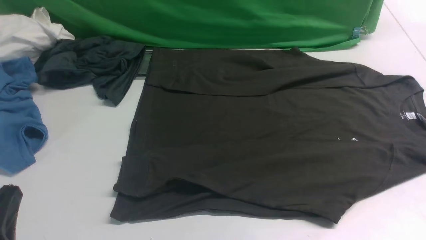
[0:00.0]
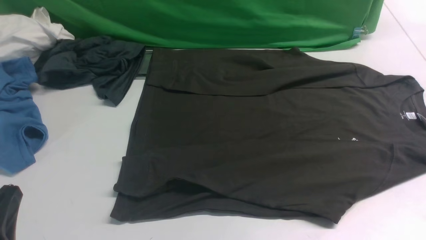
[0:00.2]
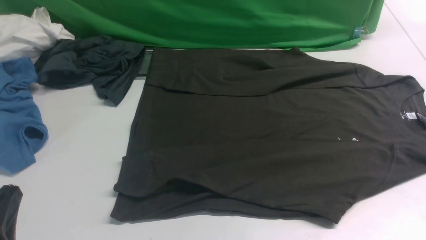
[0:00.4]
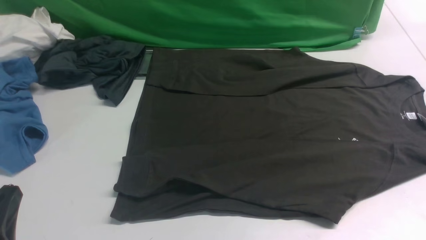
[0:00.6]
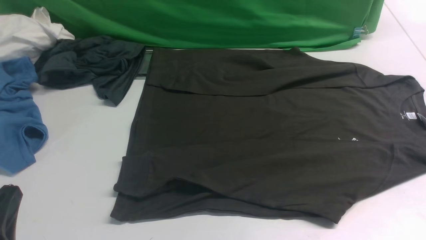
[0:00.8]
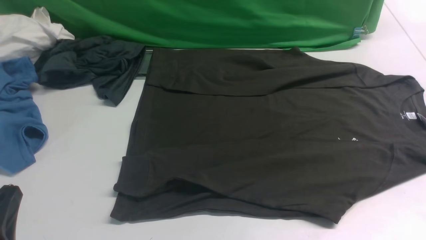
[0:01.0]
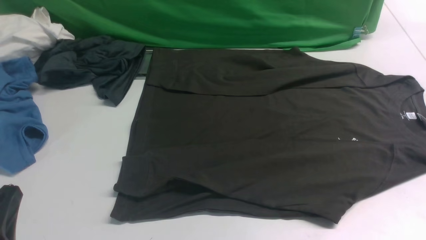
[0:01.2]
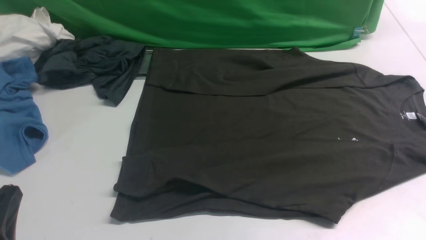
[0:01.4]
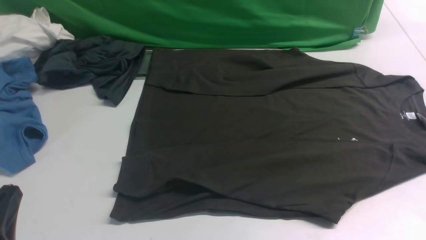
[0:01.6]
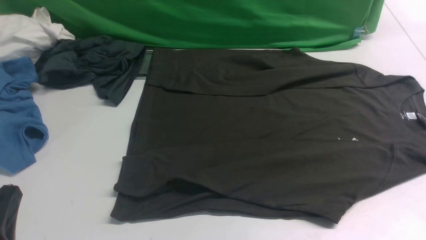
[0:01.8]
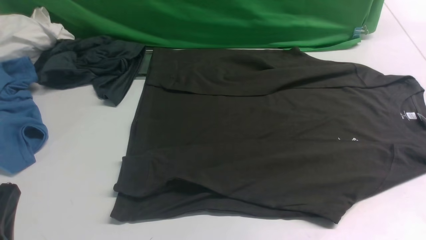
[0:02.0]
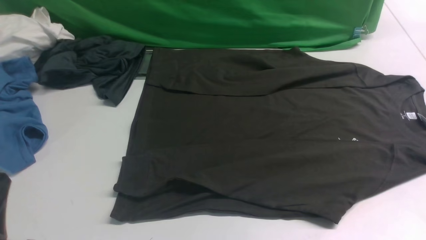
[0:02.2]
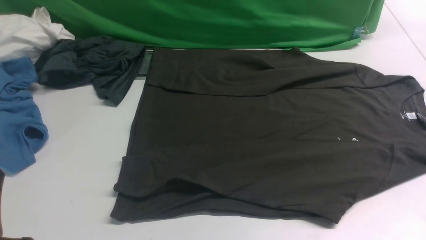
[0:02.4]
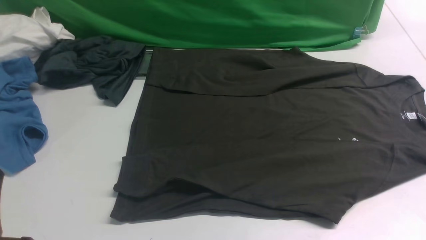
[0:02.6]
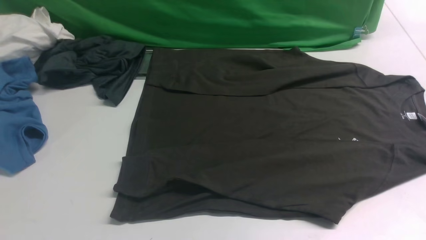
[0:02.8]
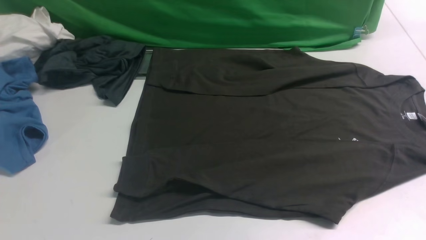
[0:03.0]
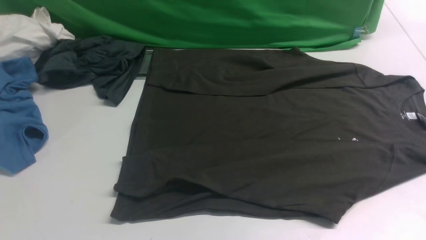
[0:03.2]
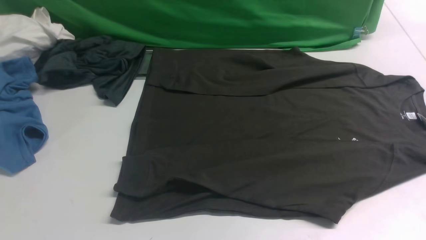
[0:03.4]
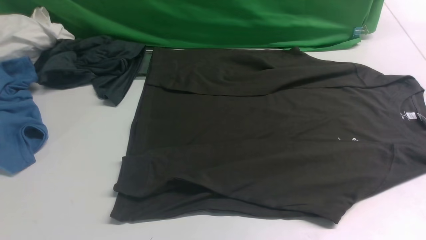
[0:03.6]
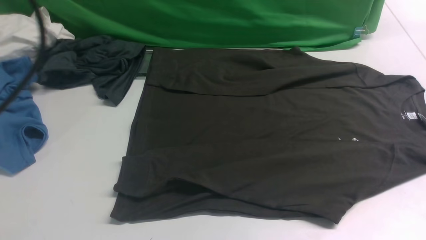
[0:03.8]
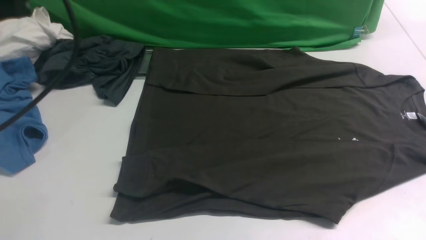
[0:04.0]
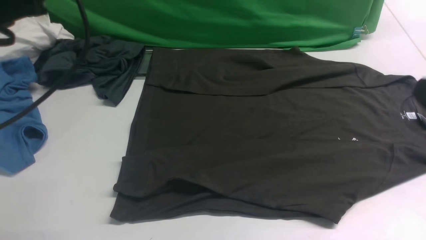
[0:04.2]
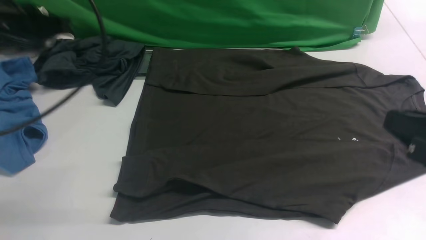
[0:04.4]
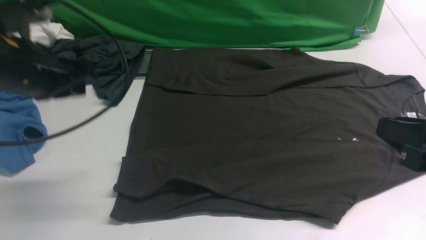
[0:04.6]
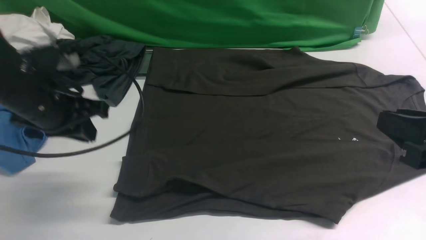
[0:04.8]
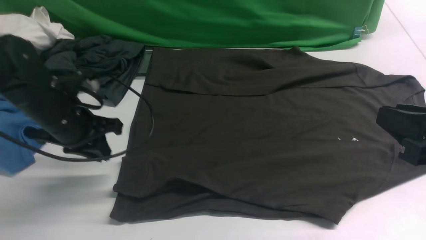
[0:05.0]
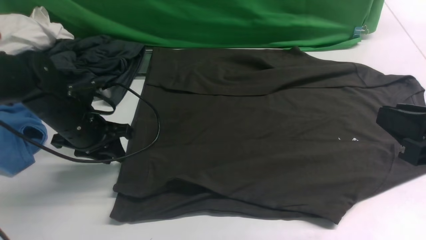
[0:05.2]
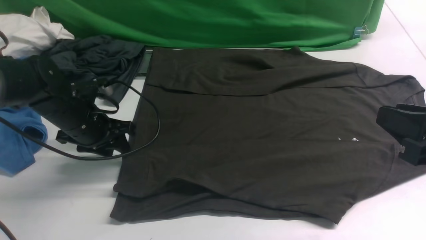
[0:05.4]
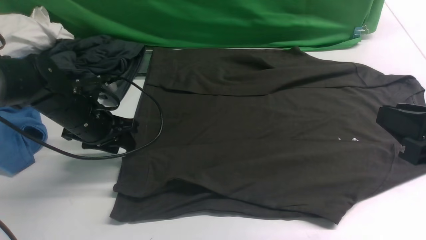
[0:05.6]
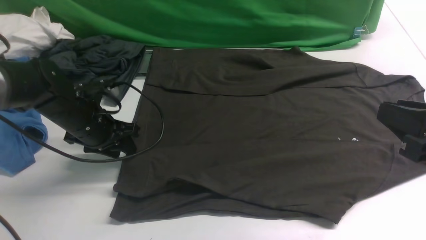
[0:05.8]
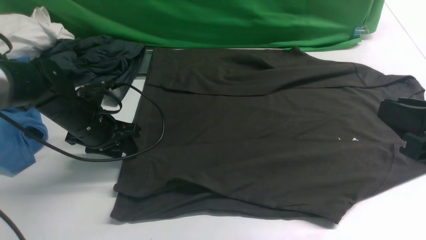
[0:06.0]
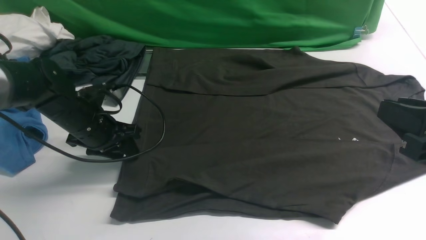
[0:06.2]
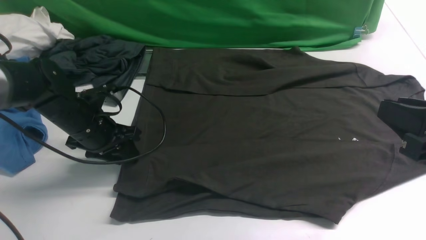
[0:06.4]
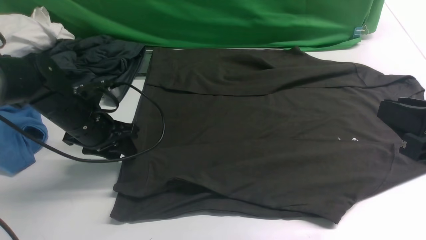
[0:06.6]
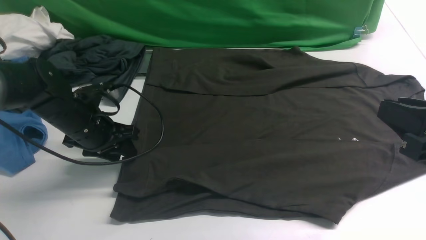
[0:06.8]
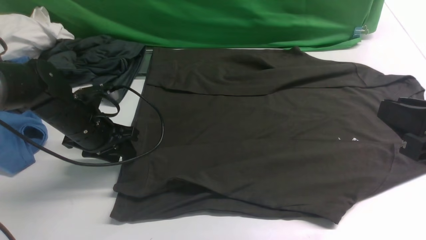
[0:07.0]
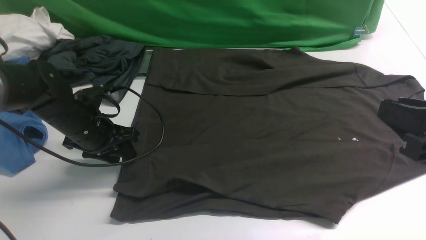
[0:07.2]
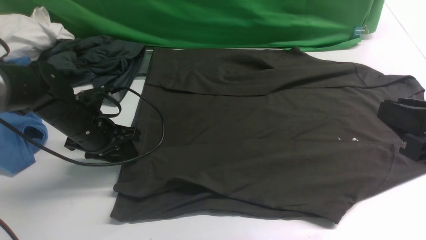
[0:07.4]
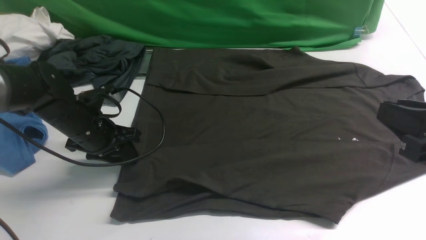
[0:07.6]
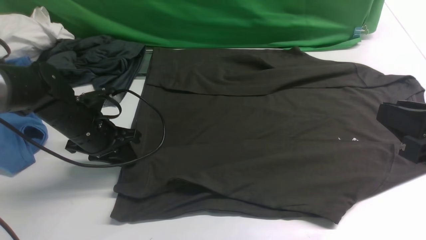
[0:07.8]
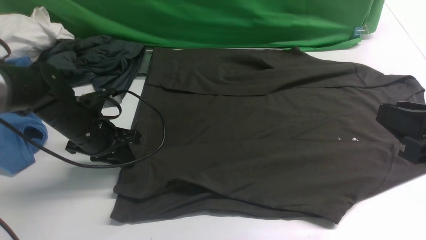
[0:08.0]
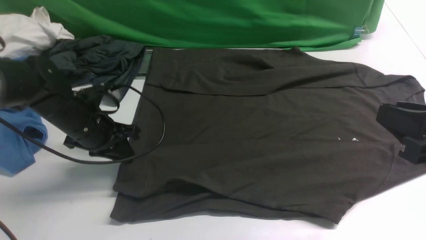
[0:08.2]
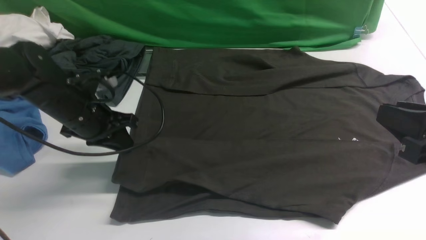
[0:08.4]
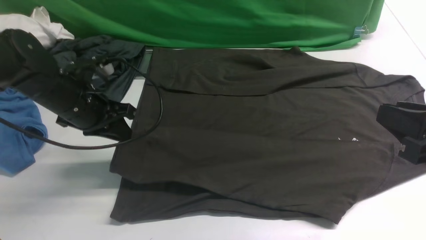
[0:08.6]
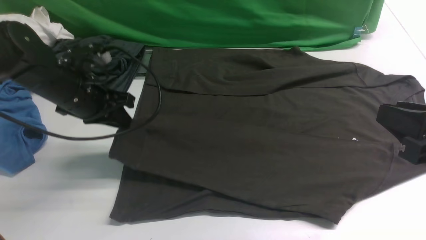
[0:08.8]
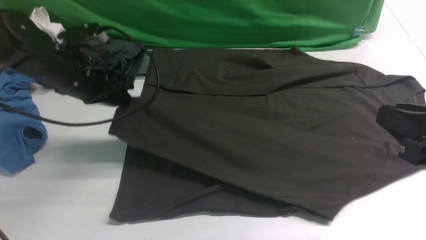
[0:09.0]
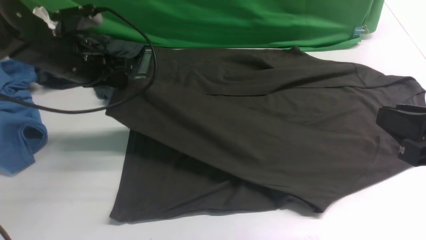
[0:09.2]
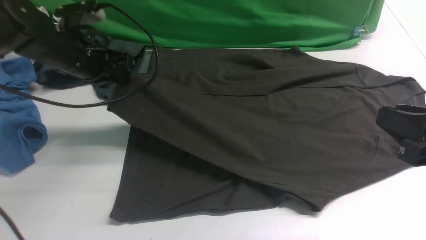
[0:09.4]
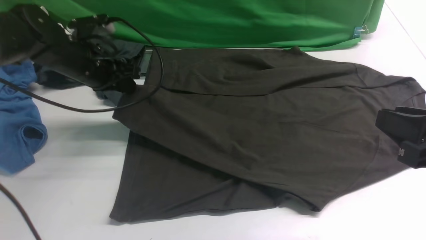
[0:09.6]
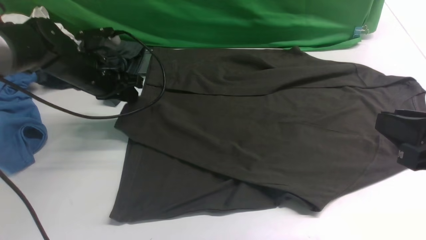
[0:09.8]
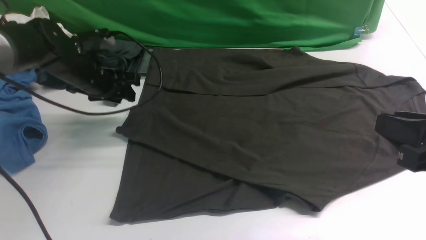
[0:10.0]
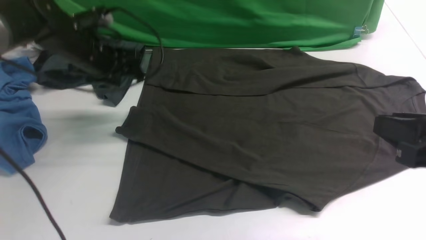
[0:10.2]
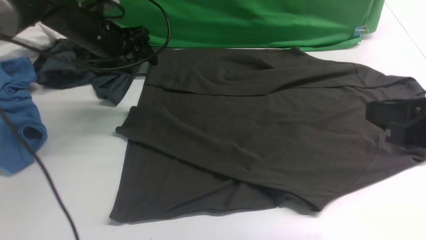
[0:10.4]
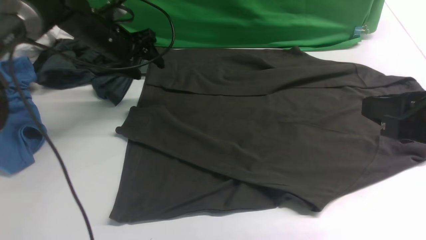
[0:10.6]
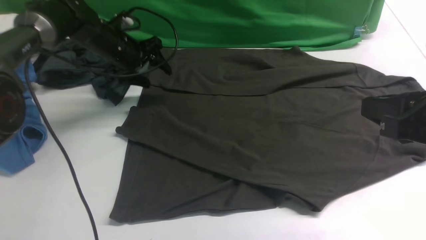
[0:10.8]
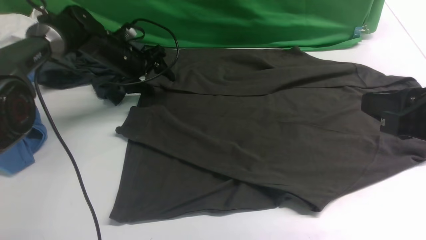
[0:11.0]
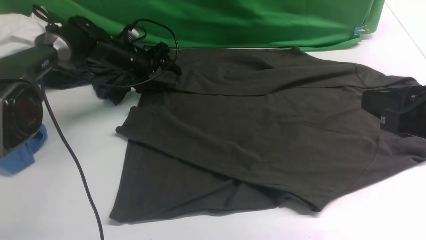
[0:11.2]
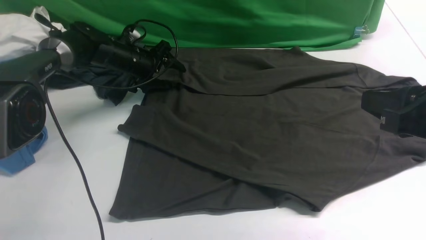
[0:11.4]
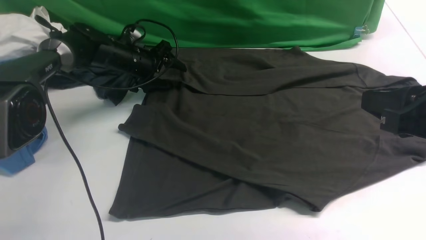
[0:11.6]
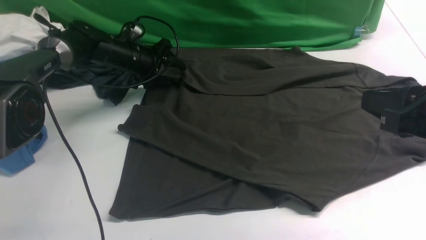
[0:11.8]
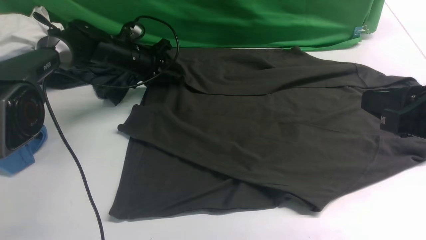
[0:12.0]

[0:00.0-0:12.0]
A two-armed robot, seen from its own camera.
Step, 0:00.0 to 0:08.2: use the left arm to clamp the cuff closest to it.
Step, 0:08.6 to 0:10.0: use the left arm to drag and place the cuff at the centered position on the left edge of the fabric.
0:00.0 to 0:01.6: Neither gripper changes place.
0:01.6 to 0:03.0: The left gripper is displaced upward by roughly 10 cm.
0:03.0 to 0:04.4: The right gripper is displaced forward and to the left by about 15 cm, and goes upward and returns, roughly 10 cm each way. Meanwhile the left gripper travels forward by approximately 25 cm.
0:04.4 to 0:06.0: The left gripper shifts about 20 cm downward, and opens.
0:06.0 to 0:07.6: Both grippers stay put.
0:07.6 to 0:09.0: The left gripper shifts roughly 10 cm upward.
0:09.0 to 0:10.4: The left gripper is displaced forward by approximately 10 cm, and opens up.
0:10.4 to 0:12.0: The left gripper moves downward and forward, some 10 cm, and closes up.

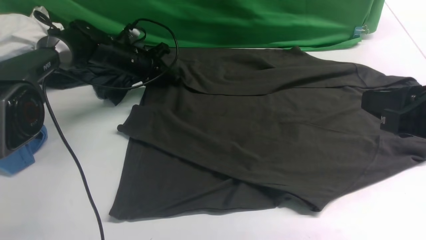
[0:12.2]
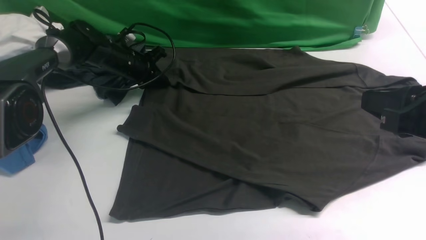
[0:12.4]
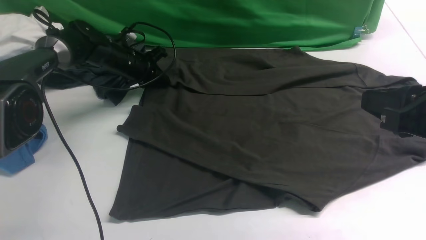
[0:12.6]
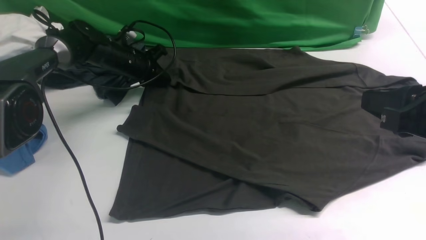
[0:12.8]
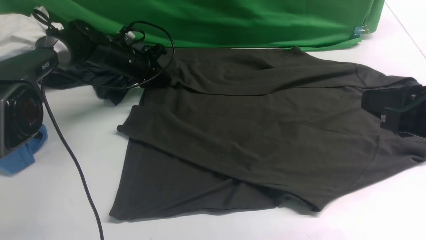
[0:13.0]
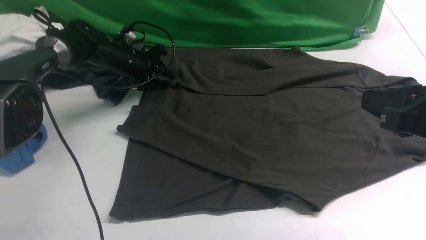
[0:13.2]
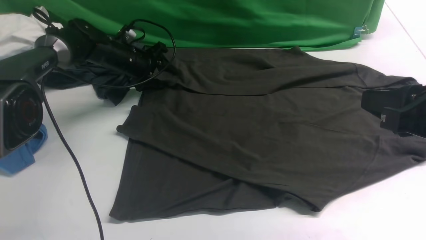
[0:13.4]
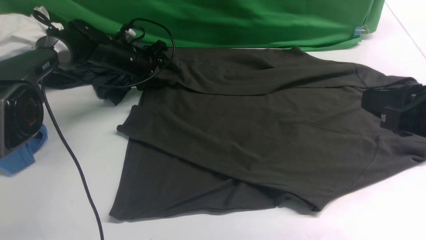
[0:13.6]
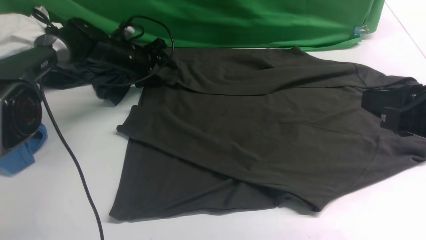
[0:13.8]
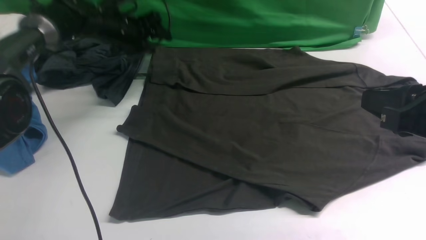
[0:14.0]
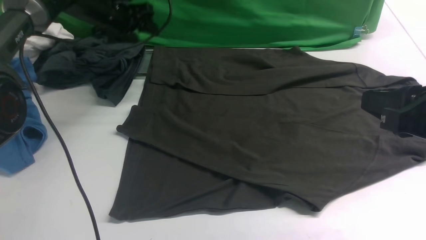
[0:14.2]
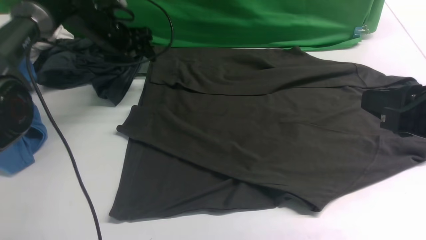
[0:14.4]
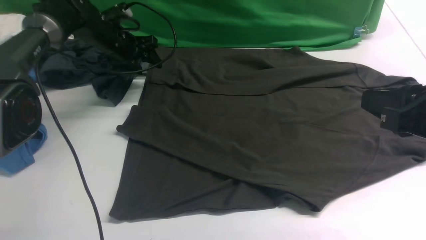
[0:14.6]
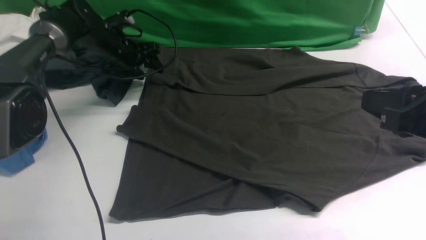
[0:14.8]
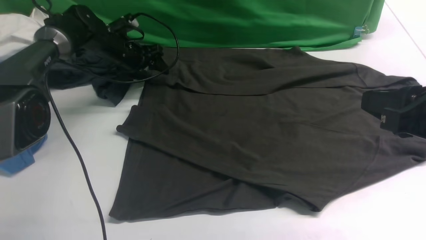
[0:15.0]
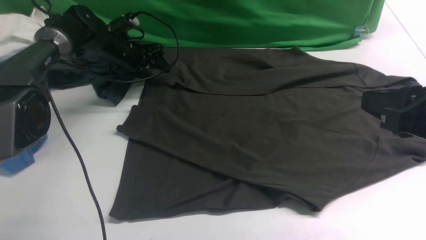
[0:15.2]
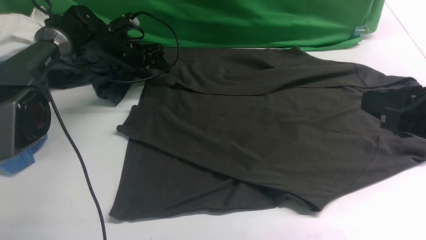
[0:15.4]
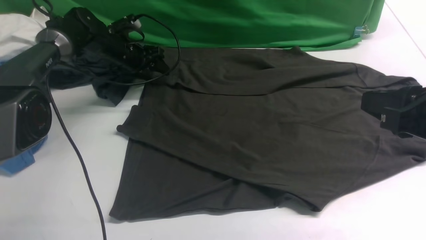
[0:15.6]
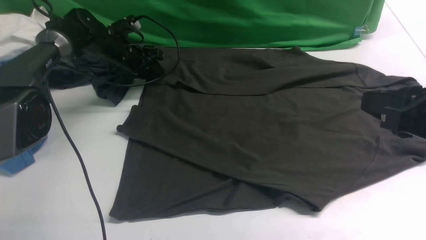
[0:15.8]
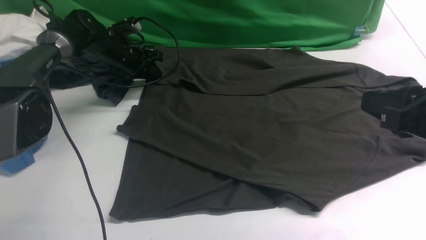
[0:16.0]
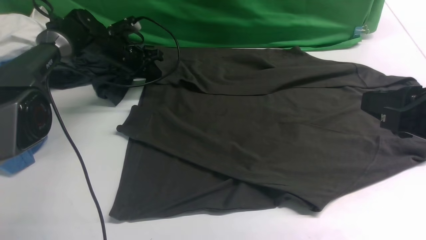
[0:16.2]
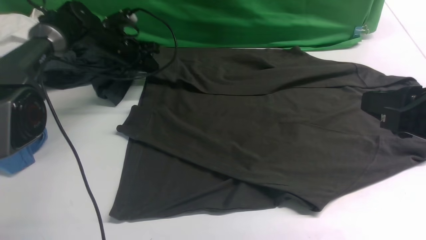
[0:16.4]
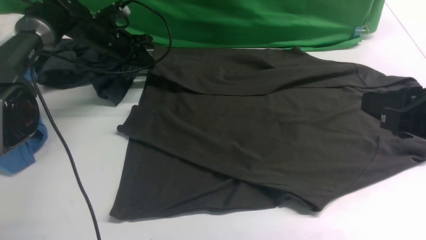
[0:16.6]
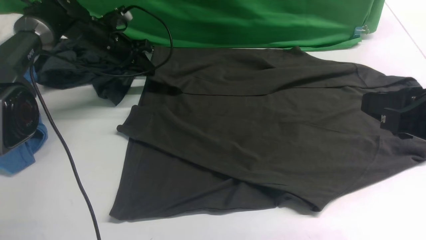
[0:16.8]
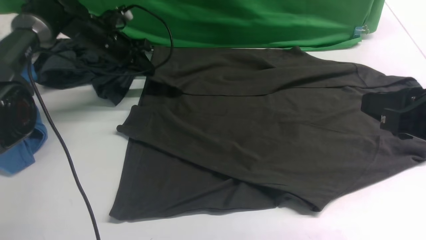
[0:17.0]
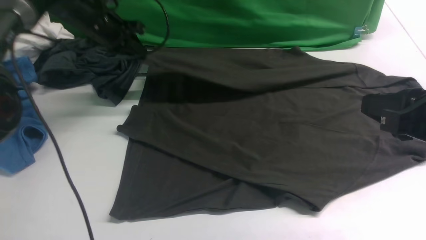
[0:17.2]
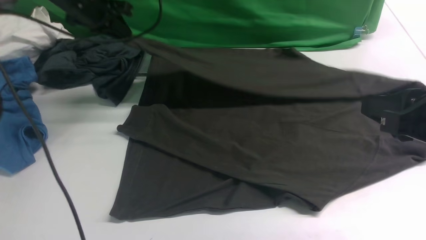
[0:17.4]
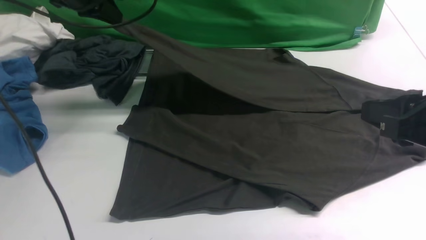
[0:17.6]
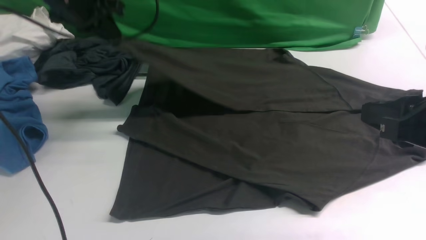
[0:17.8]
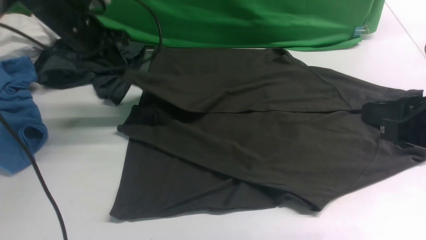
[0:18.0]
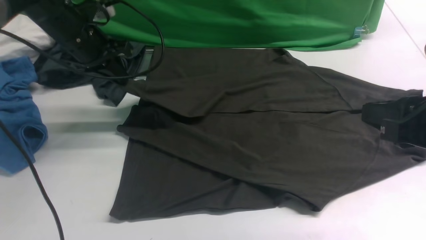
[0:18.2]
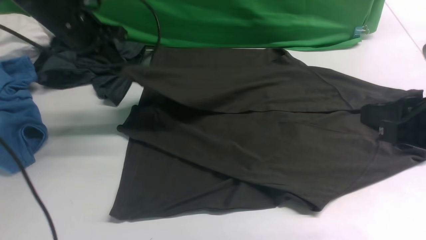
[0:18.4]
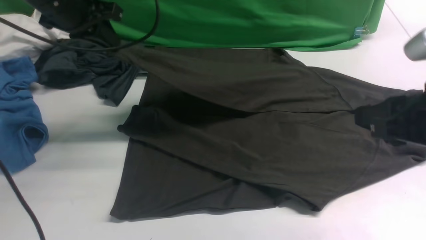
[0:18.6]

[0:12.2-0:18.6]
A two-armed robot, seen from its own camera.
Step, 0:12.2 to 0:16.6: use the left arm to clamp the cuff farthest from it.
0:12.2 to 0:13.8: The left gripper opens up.
0:15.4 to 0:17.0: The left gripper travels upward by roughly 5 cm, and closes its fingers.
0:17.0 to 0:18.6: The left gripper travels backward and upward by approximately 15 cm.
